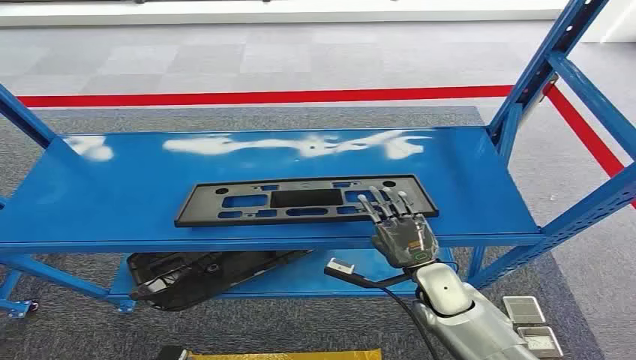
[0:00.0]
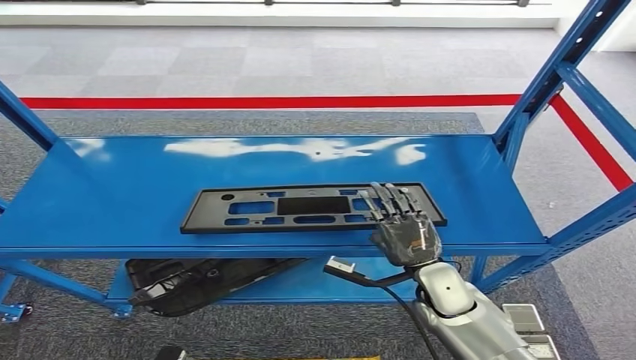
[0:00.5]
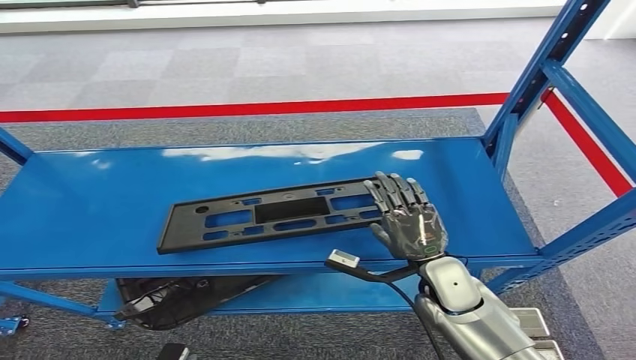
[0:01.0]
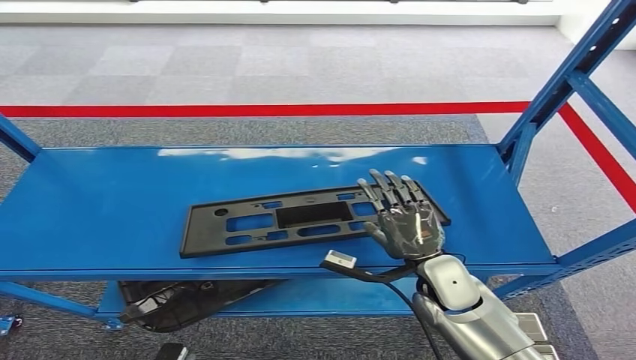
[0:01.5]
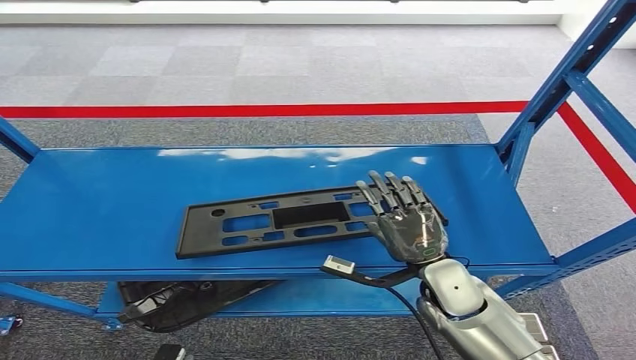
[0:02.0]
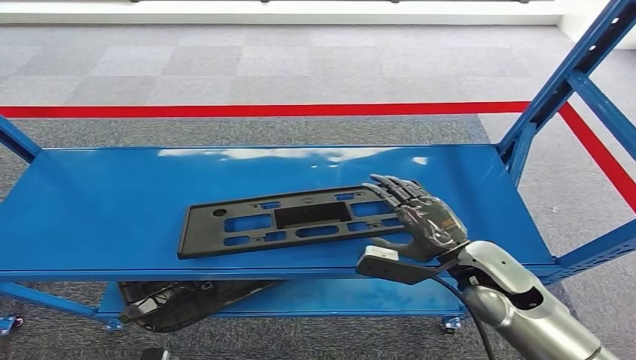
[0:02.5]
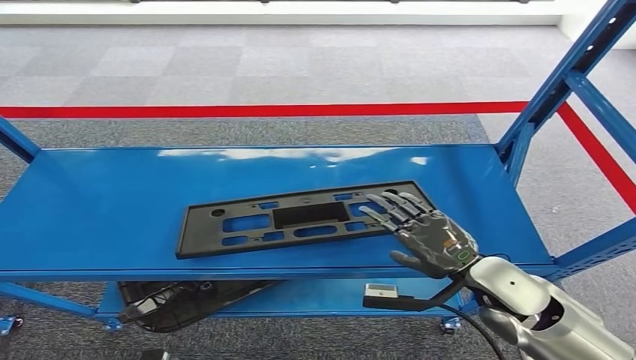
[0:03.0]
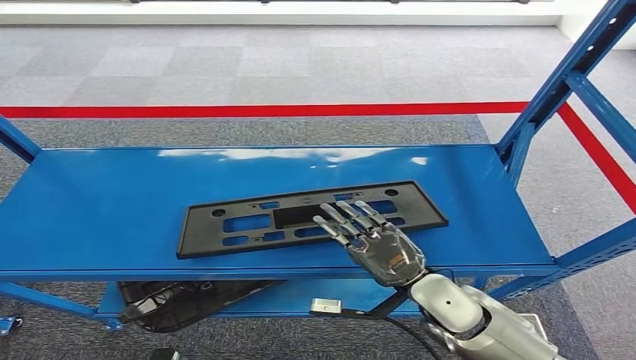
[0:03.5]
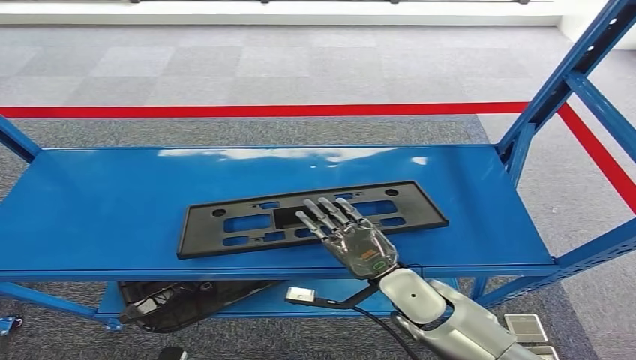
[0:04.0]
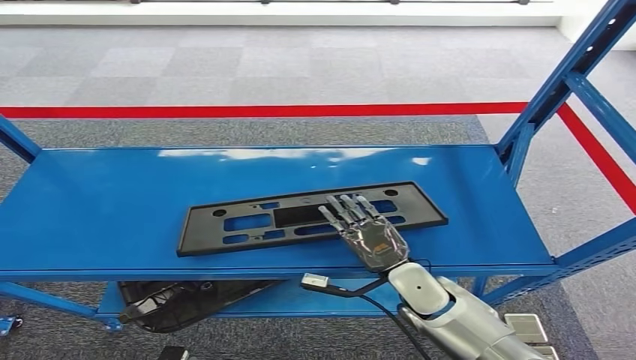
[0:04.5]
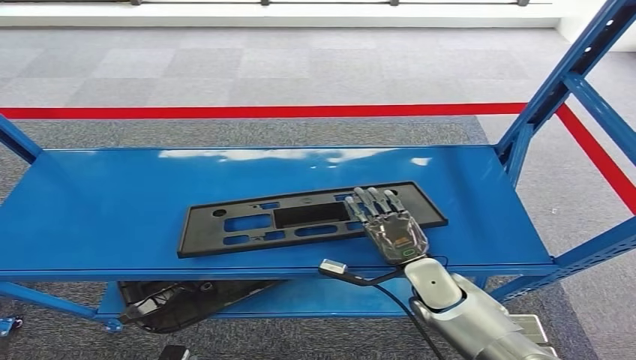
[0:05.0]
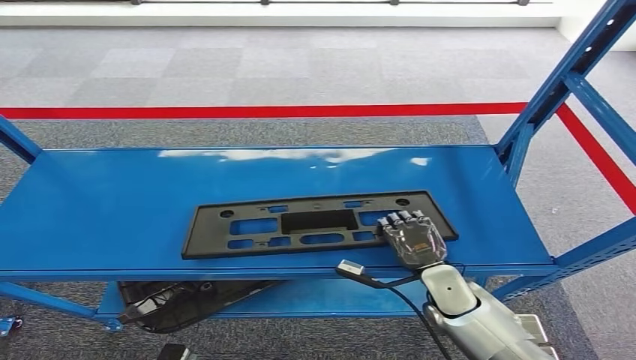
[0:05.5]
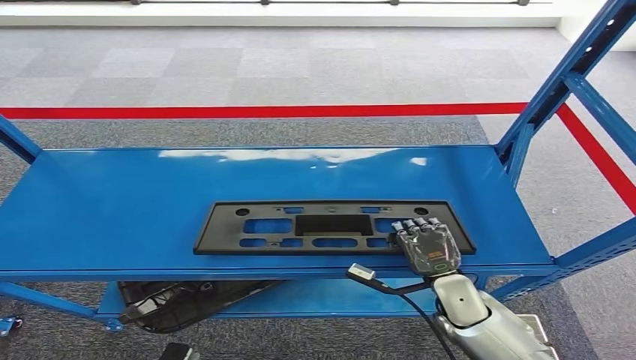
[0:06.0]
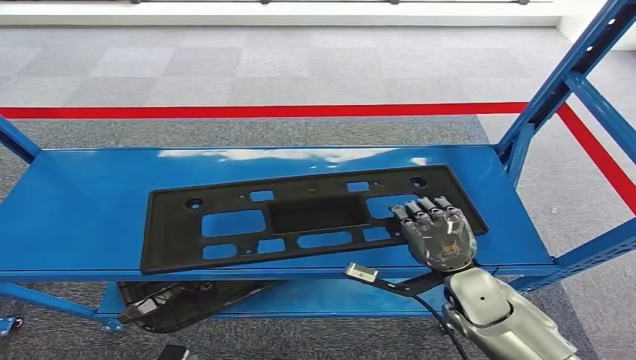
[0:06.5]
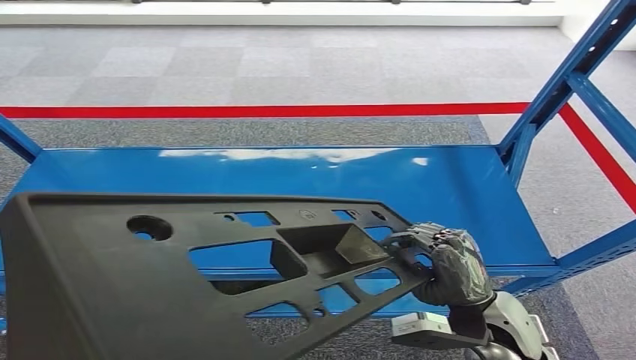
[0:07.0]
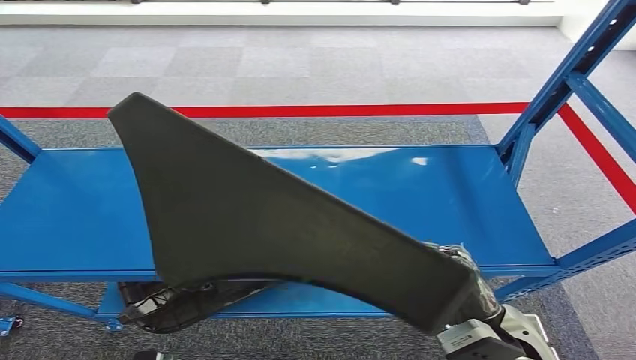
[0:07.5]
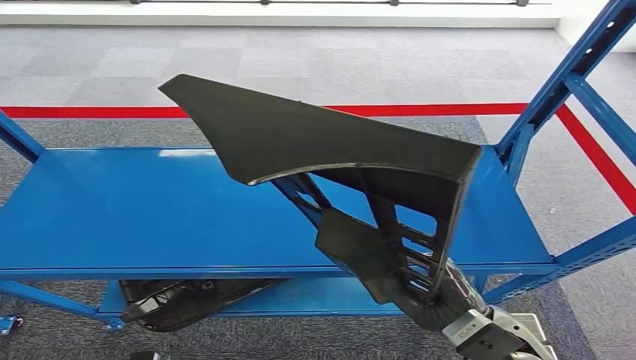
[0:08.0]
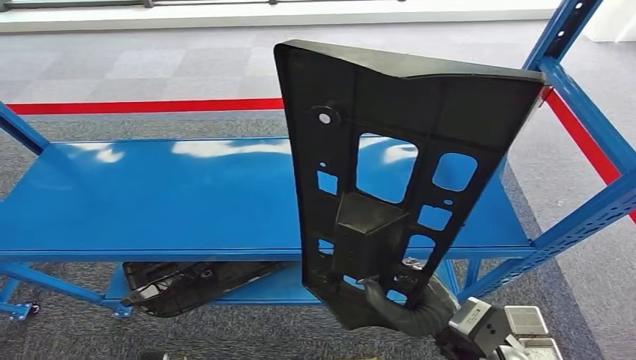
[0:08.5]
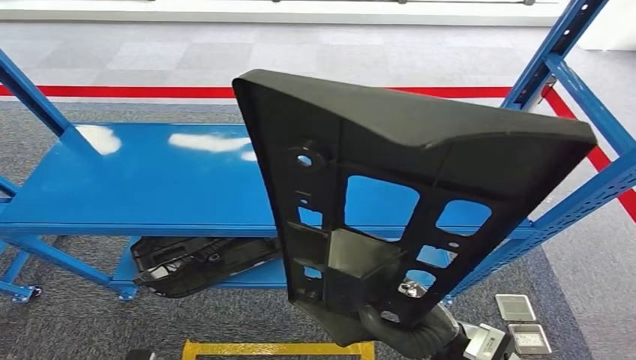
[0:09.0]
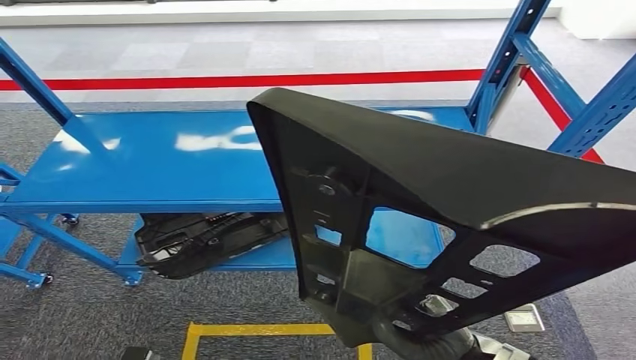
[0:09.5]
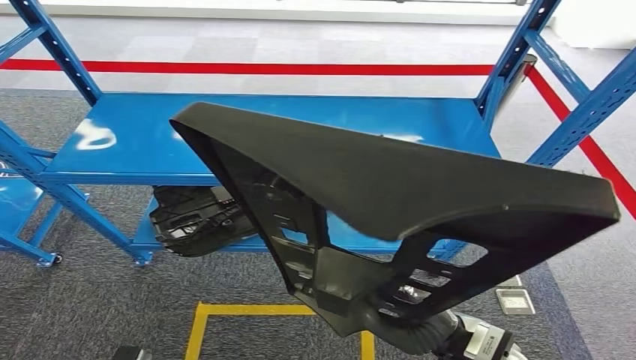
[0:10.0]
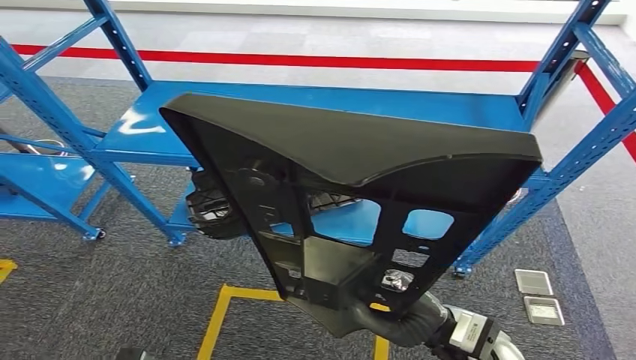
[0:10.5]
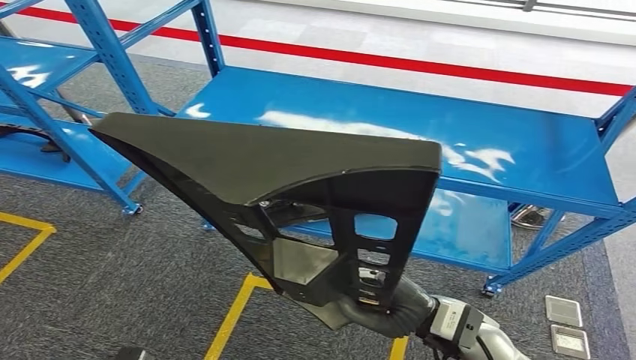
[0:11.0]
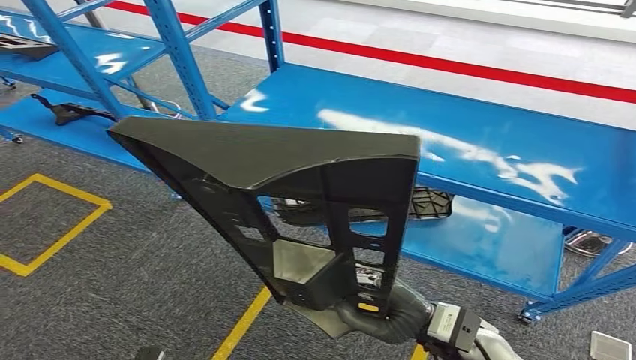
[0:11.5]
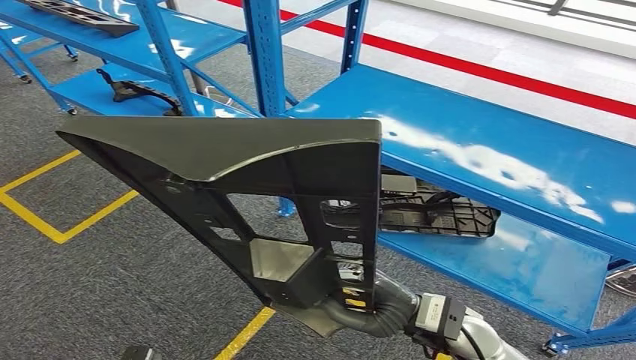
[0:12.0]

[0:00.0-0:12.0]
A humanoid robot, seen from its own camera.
Step, 0:00.0 to 0:07.5: Pick up the large material from the shelf.
0:04.0 to 0:06.0: The right hand heads to the right and downward, covering some 10 cm.
0:06.0 to 0:08.0: The right hand moves upward and backward, roughly 15 cm.

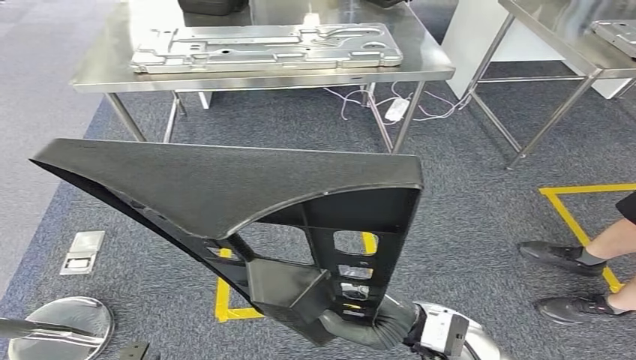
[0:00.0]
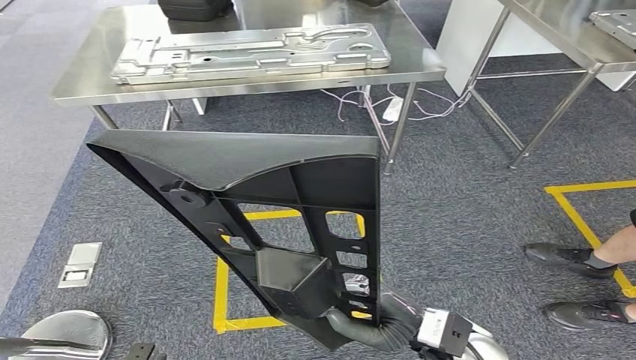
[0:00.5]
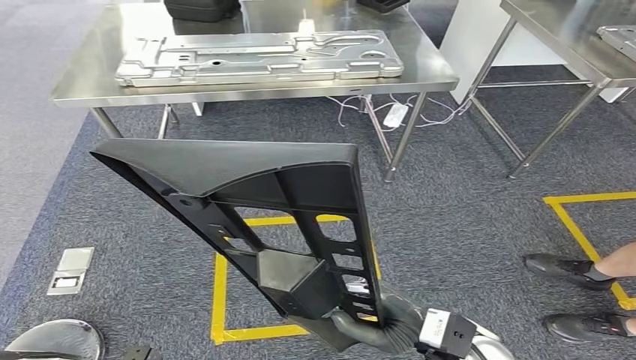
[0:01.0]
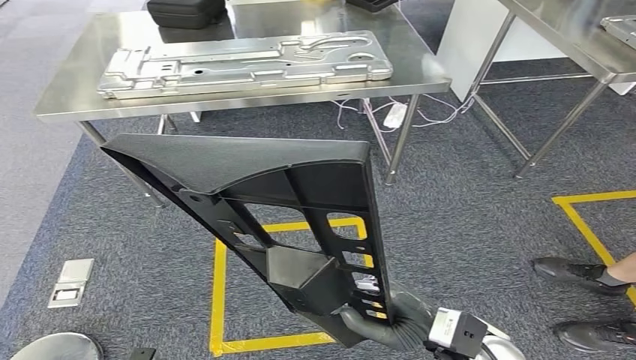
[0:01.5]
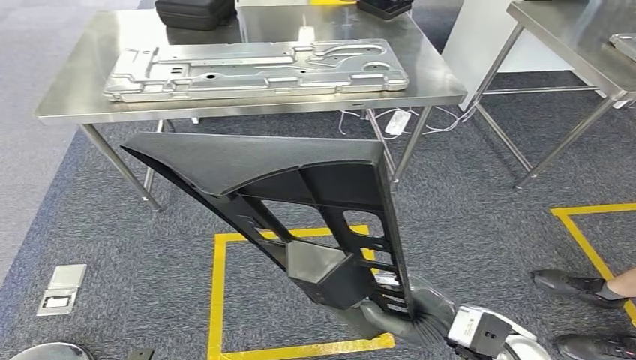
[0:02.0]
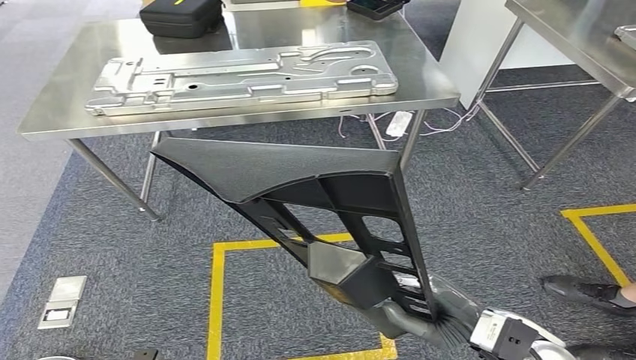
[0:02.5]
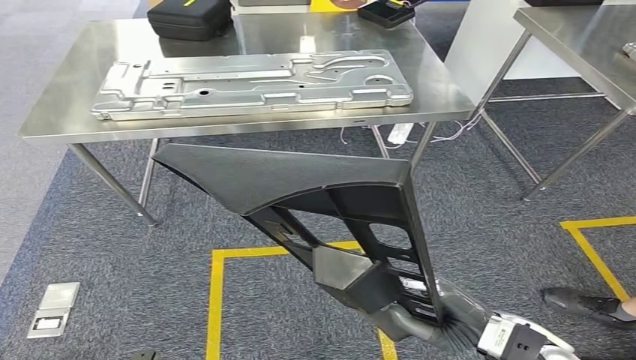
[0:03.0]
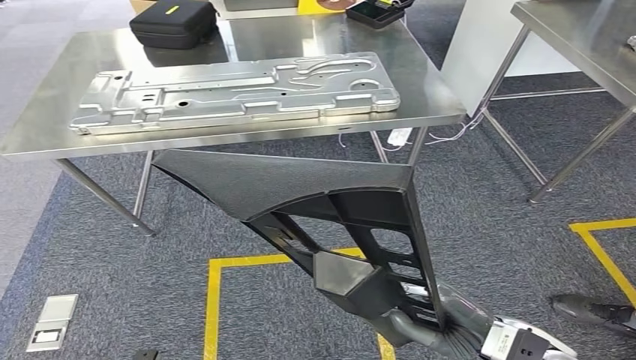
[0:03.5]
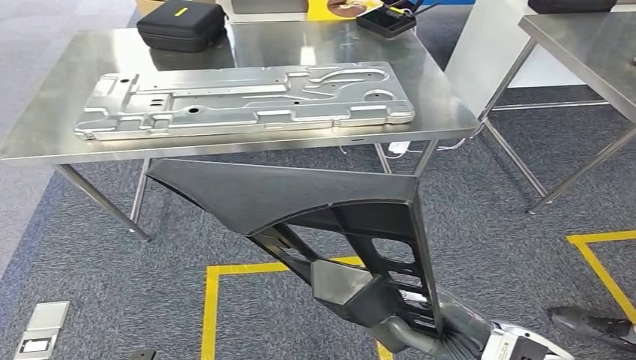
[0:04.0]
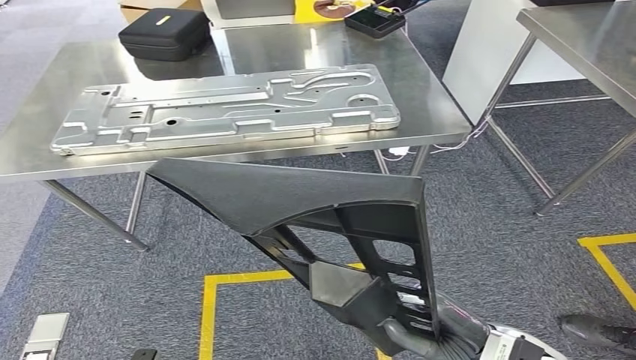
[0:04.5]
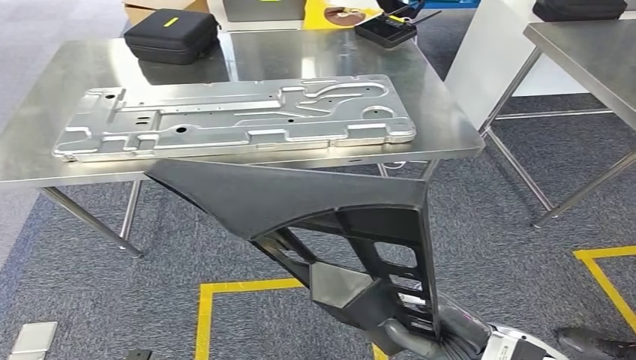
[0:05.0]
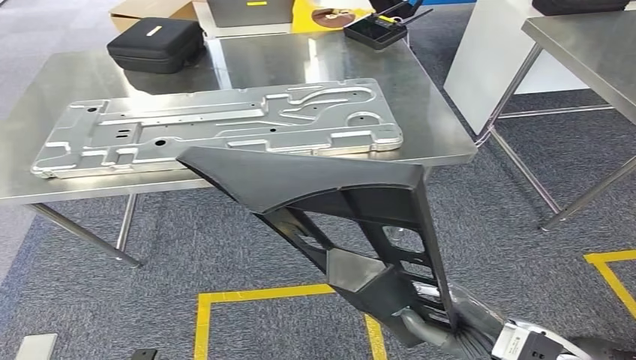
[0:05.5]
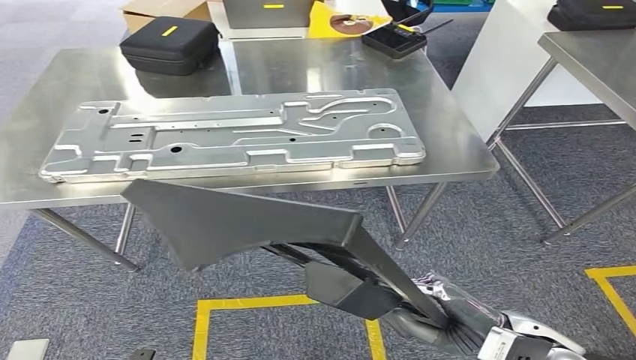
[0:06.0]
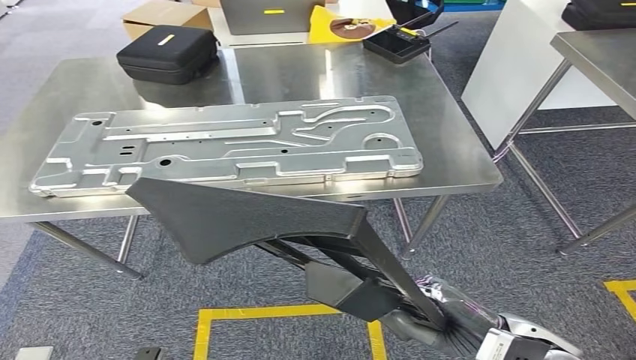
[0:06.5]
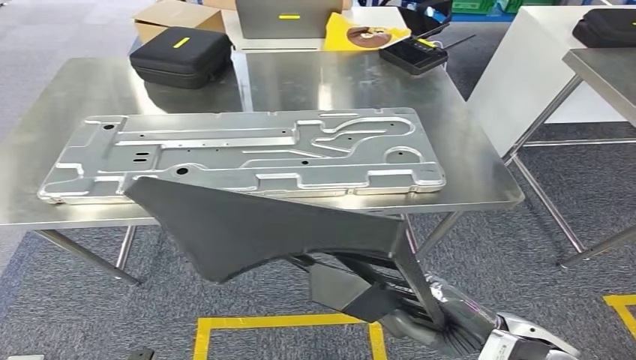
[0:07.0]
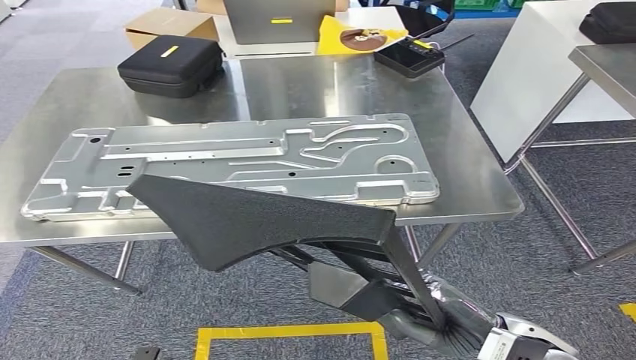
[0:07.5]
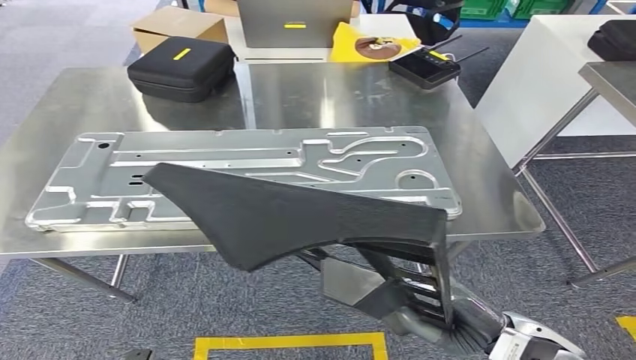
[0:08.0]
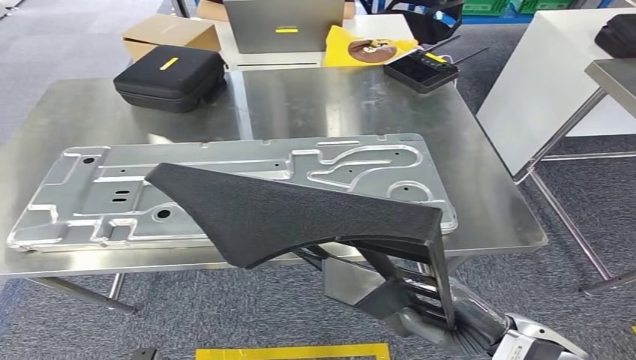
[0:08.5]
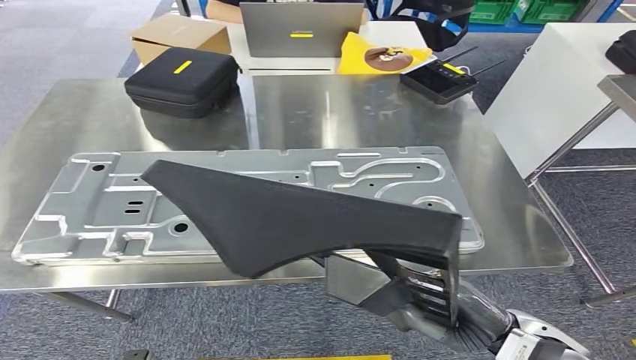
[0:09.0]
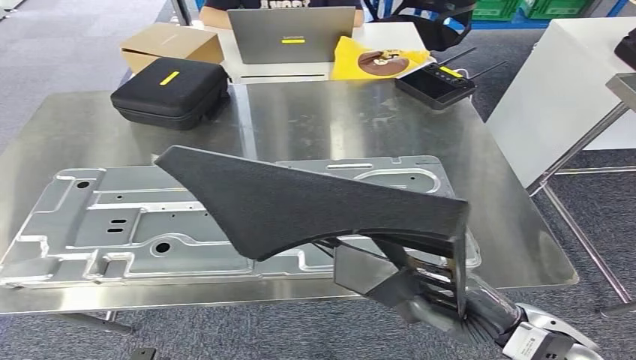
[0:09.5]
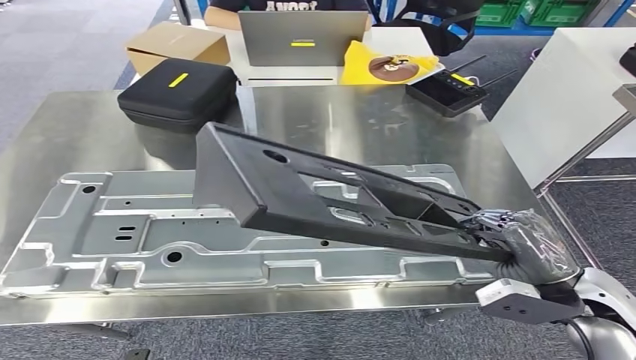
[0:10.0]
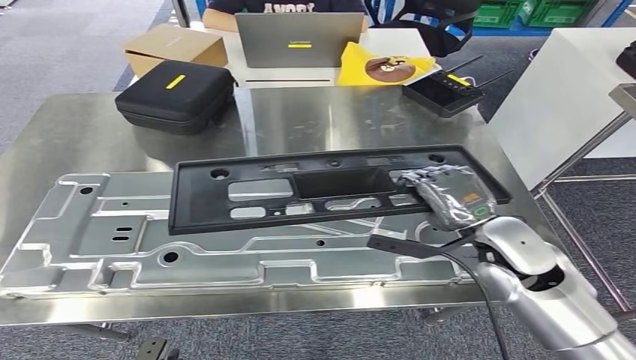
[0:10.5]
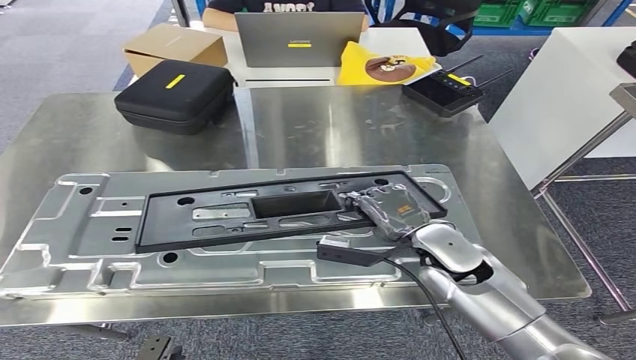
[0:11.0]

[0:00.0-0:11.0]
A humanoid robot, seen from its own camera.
Step, 0:00.0 to 0:06.5: Move the large material to the workbench.
